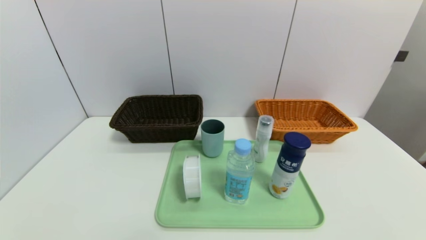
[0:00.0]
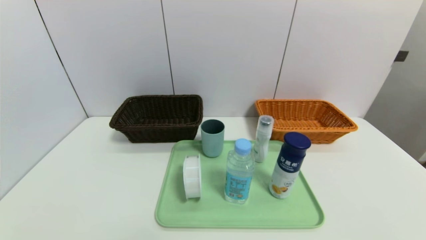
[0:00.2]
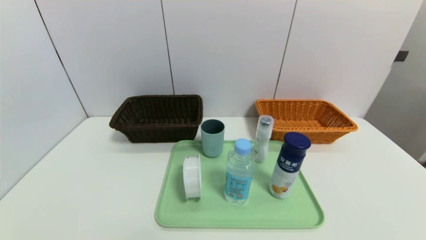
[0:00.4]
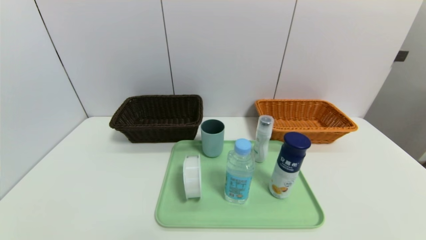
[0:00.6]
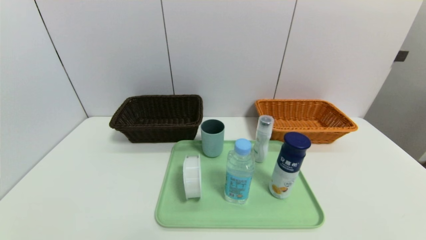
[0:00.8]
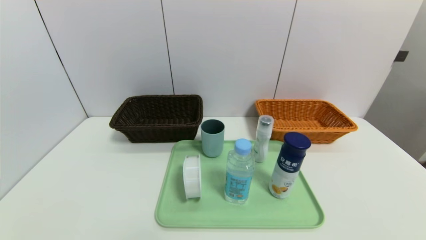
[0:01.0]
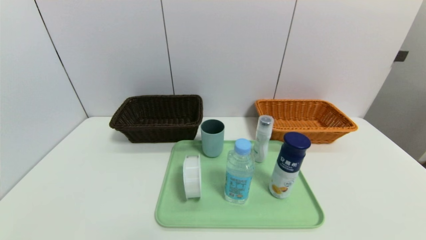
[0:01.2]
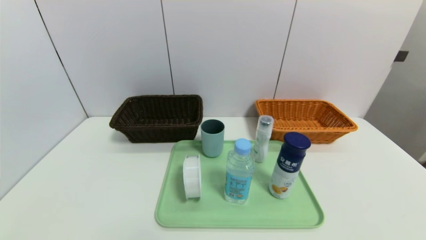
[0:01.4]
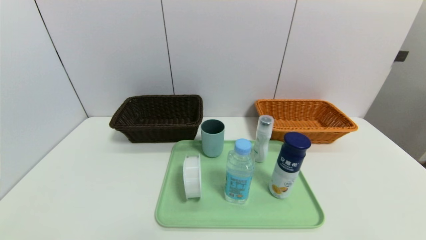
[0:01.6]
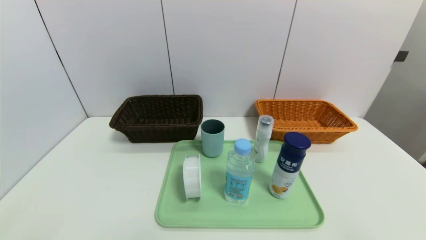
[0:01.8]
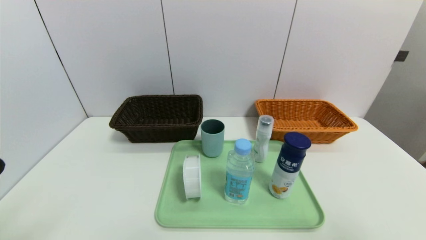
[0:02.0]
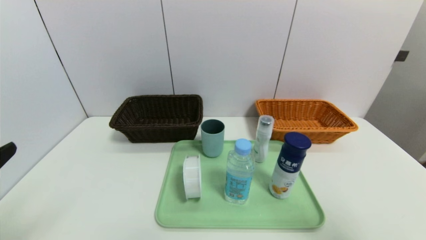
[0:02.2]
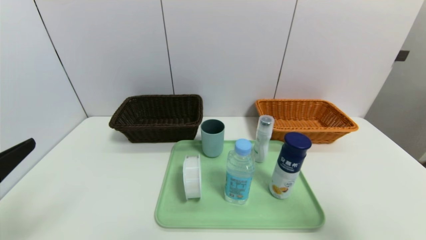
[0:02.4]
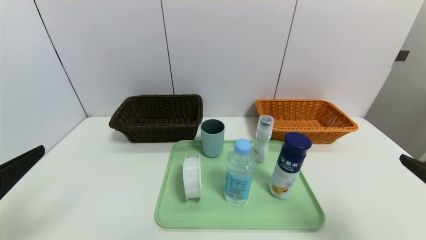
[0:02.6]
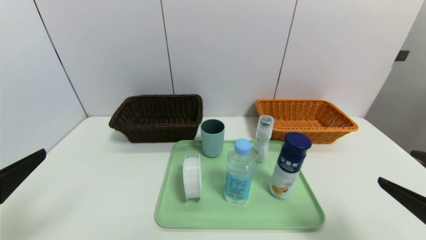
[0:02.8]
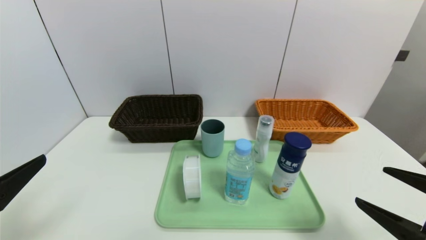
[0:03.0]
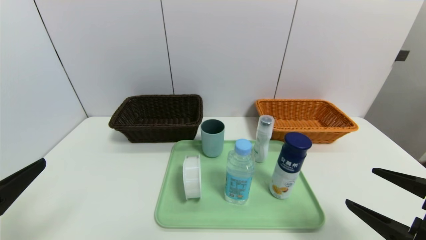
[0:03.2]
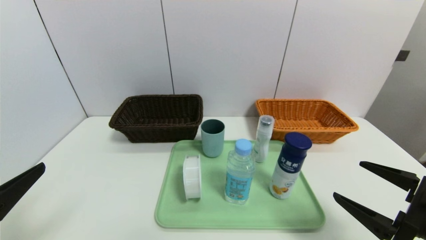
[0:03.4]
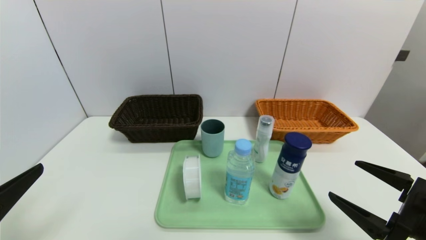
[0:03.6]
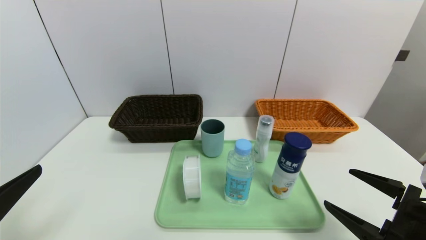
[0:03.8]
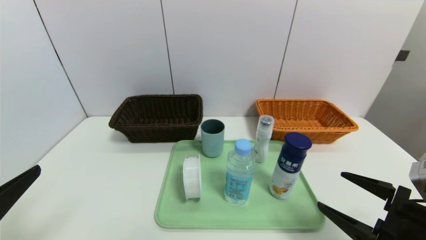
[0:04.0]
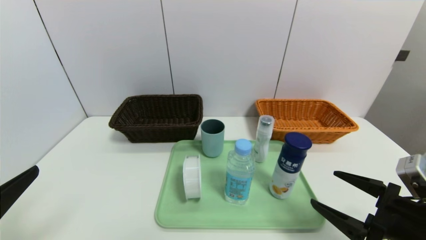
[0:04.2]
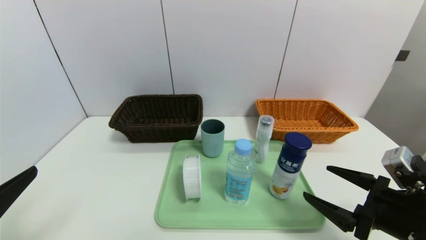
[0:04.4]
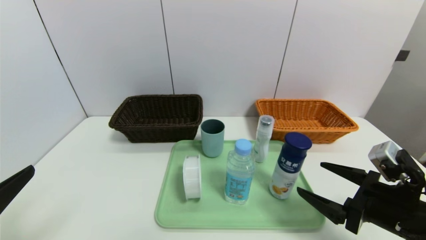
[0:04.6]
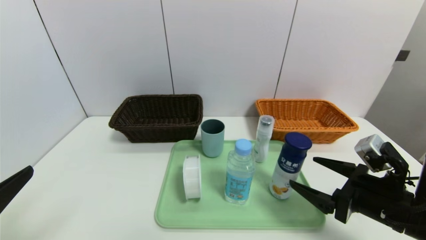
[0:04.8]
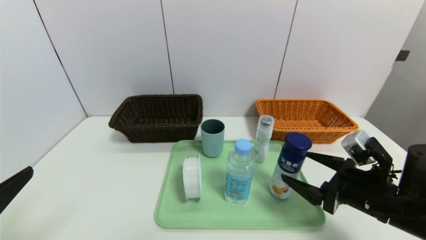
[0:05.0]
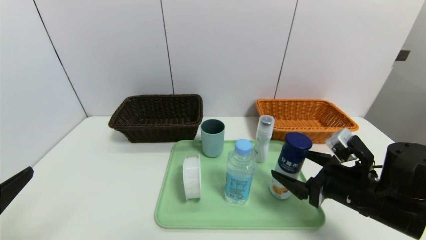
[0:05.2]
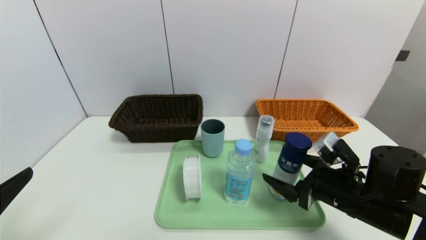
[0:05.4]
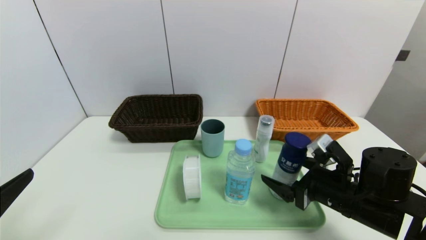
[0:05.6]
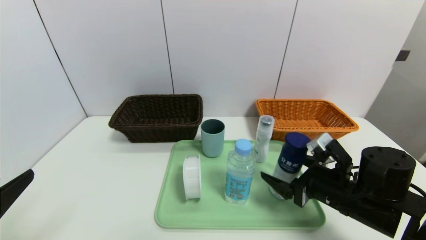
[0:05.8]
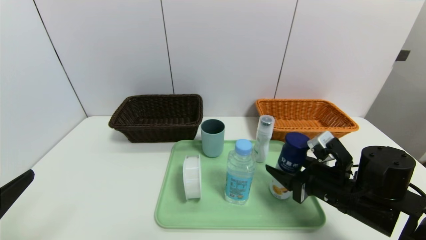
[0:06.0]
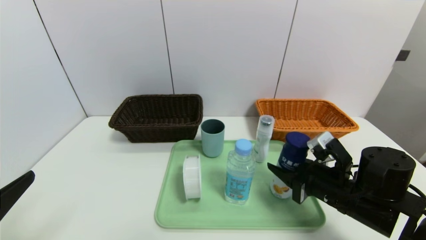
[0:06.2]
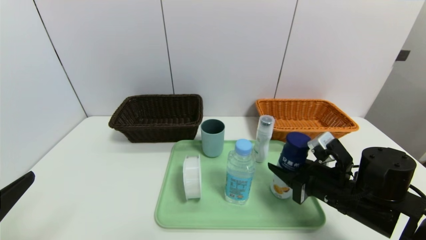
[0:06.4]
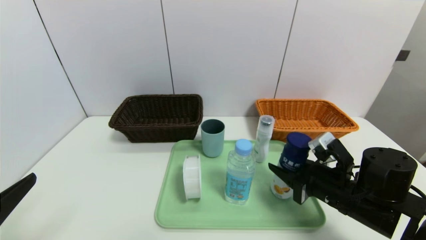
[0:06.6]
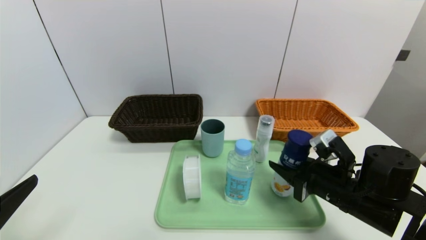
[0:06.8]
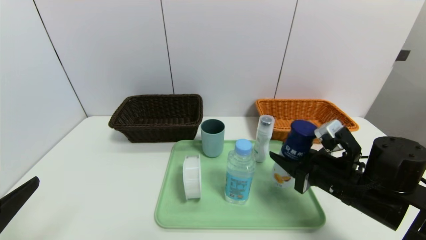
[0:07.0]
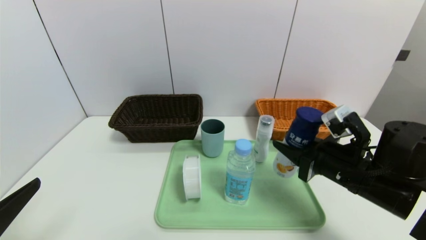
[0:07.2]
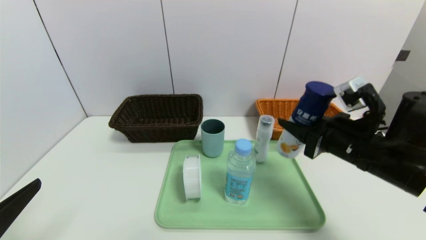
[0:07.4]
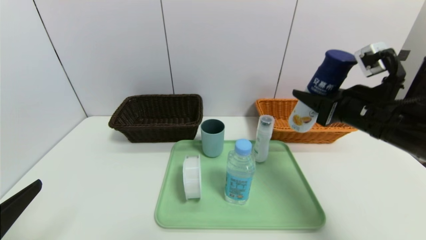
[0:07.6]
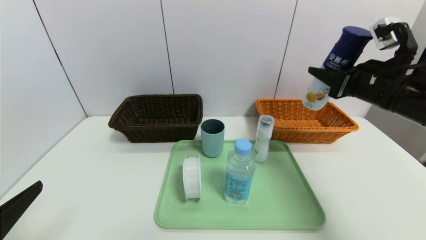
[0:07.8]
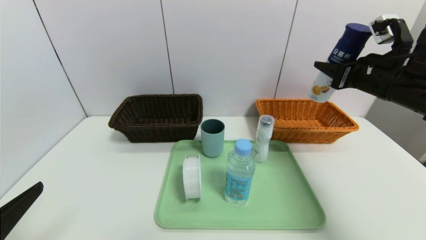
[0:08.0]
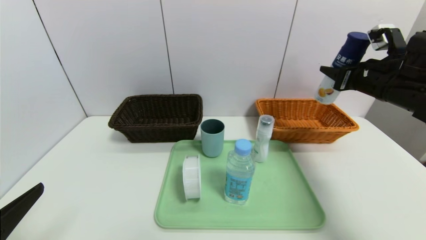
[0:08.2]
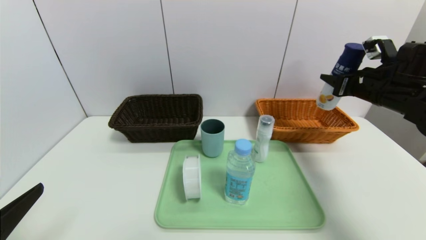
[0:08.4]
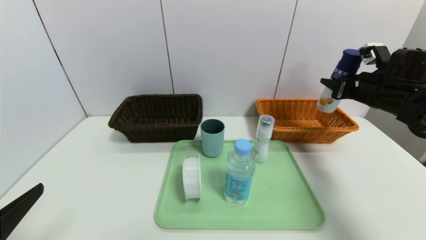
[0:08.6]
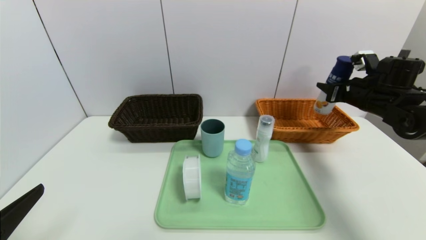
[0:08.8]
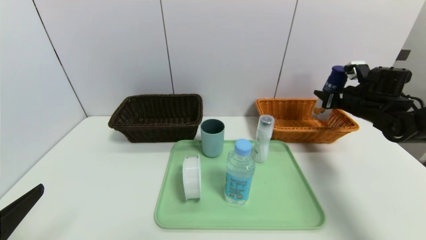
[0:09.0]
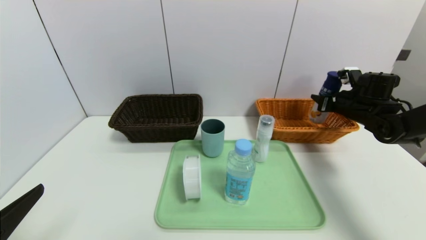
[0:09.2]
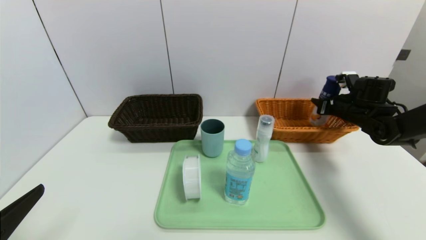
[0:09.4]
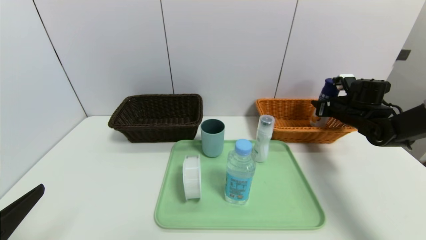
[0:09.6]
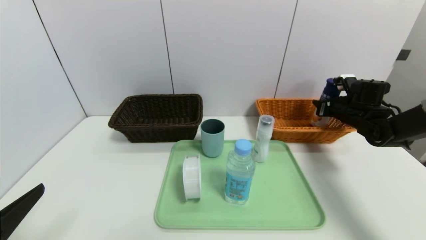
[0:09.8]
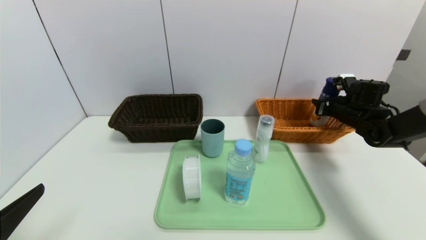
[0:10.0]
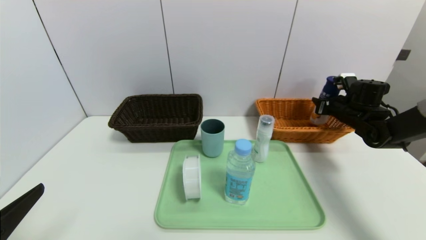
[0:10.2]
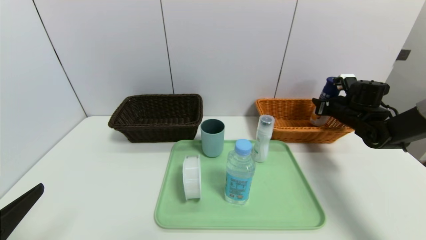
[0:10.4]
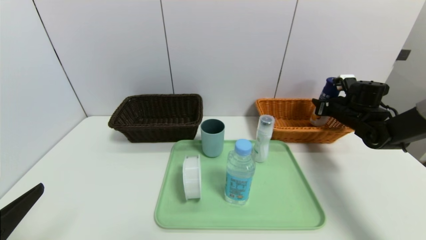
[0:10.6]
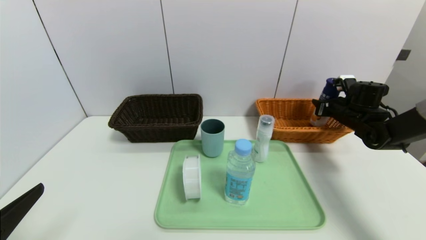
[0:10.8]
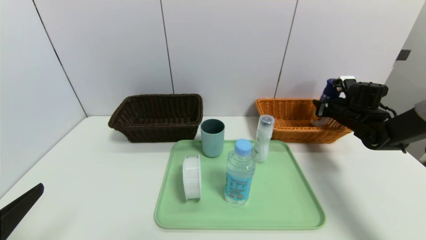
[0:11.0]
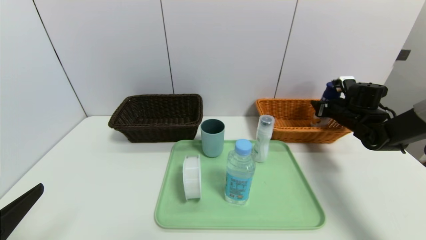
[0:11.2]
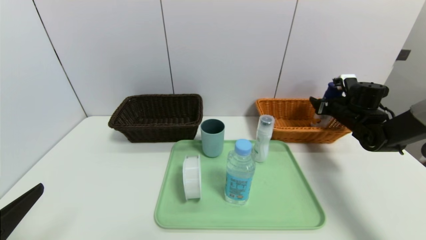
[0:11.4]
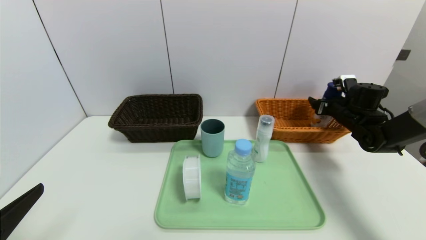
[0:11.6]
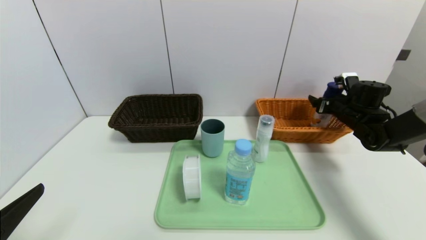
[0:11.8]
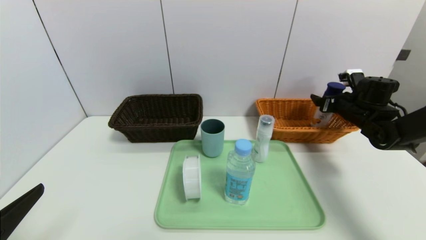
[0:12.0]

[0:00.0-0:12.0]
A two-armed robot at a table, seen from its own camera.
Task of the whole recording: place the food in the right basket with the right gripper, and place the non food items in the left basket with the left gripper.
0:01.6 to 0:03.0: Both grippers move forward, roughly 10 cm.
0:03.0 to 0:04.4: The right gripper shifts about 5 cm forward.
0:04.4 to 0:06.0: The right gripper shifts some 10 cm forward and to the left, and closes up.
0:06.0 to 0:07.6: The right gripper heads upward, covering about 15 cm.
0:07.6 to 0:09.0: The right gripper goes about 20 cm forward, to the right and downward.
0:09.0 to 0:10.4: The grippers make only small movements.
0:10.4 to 0:12.0: The right gripper opens up.

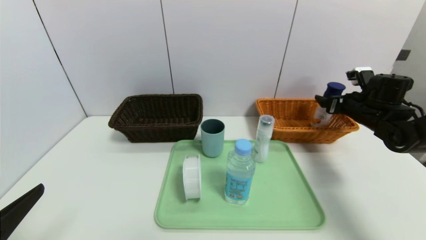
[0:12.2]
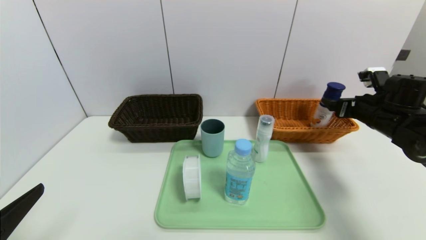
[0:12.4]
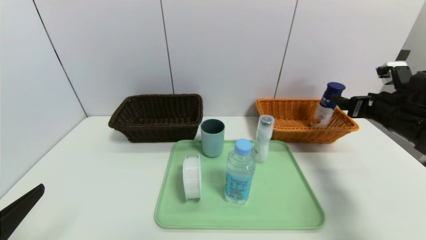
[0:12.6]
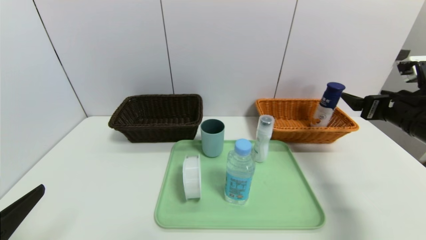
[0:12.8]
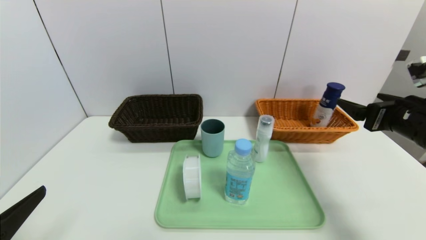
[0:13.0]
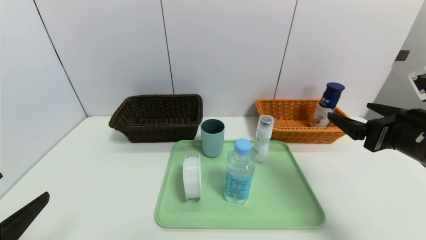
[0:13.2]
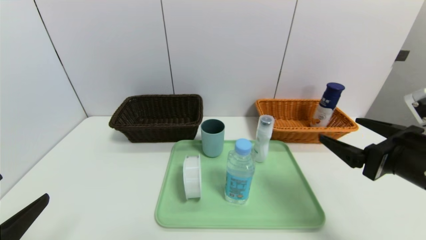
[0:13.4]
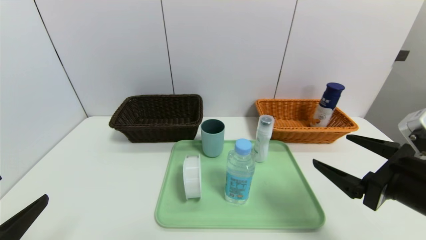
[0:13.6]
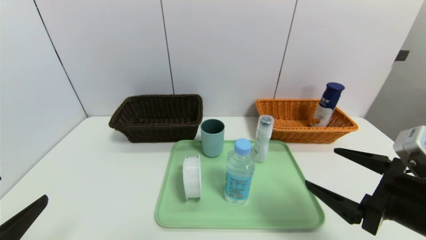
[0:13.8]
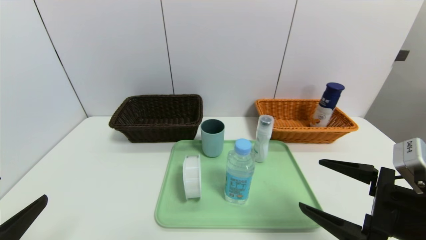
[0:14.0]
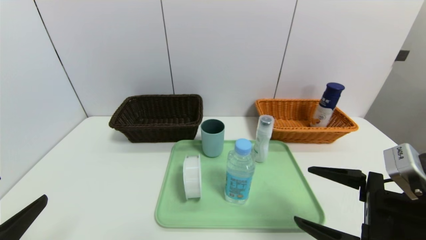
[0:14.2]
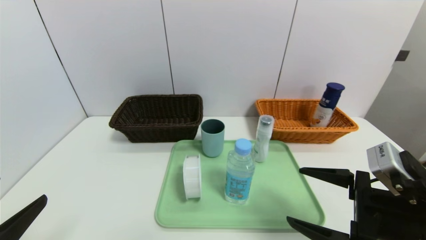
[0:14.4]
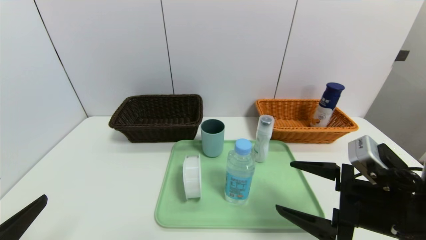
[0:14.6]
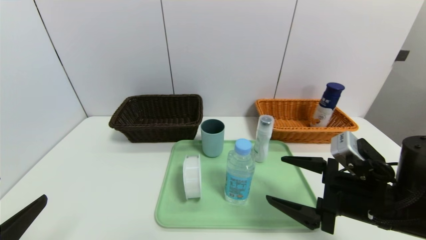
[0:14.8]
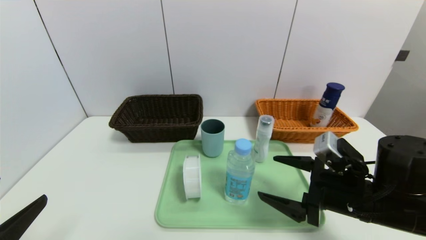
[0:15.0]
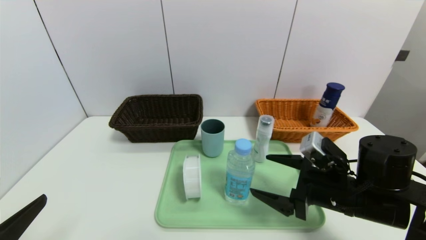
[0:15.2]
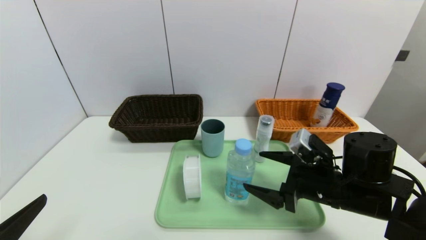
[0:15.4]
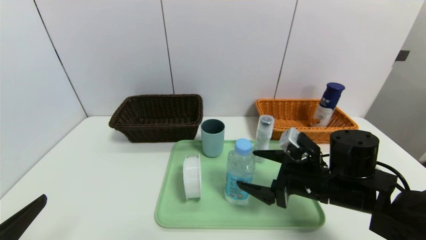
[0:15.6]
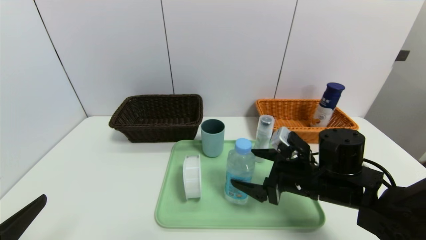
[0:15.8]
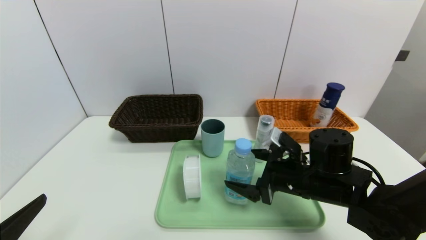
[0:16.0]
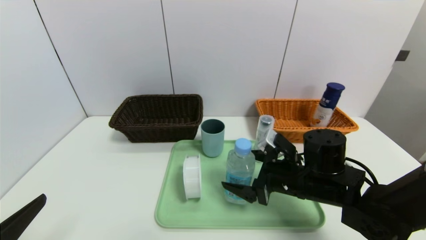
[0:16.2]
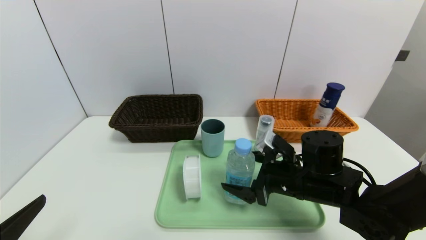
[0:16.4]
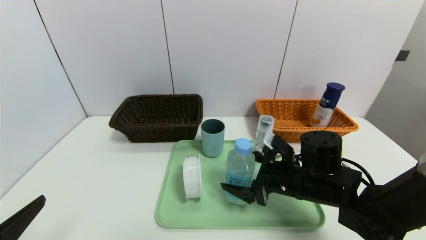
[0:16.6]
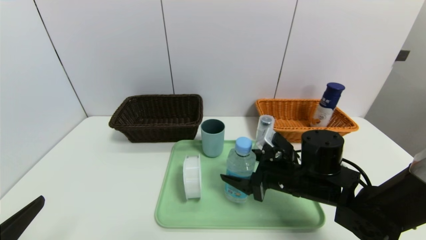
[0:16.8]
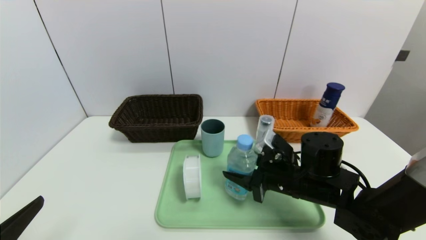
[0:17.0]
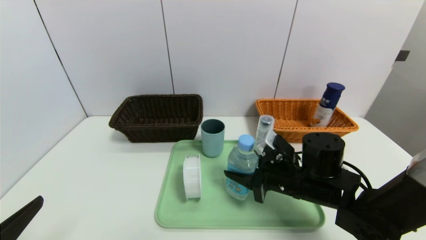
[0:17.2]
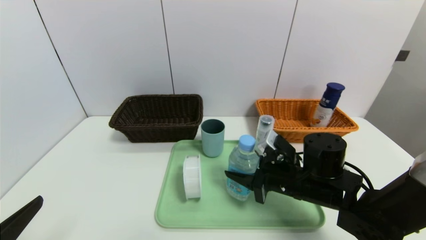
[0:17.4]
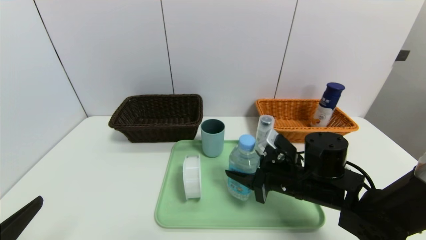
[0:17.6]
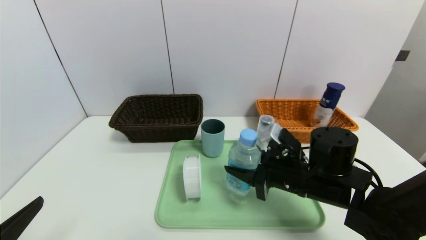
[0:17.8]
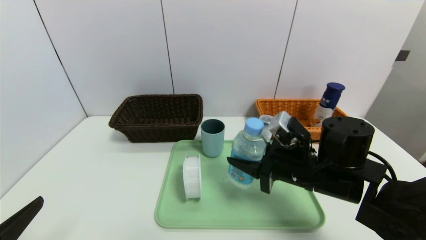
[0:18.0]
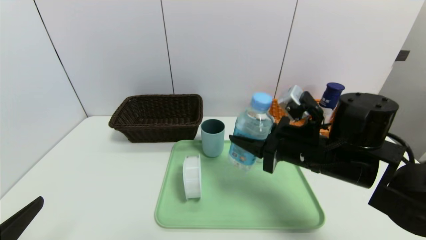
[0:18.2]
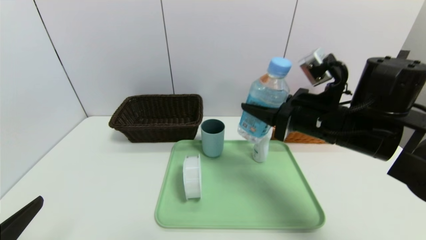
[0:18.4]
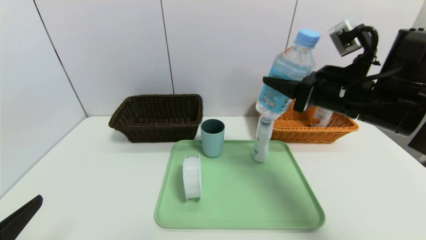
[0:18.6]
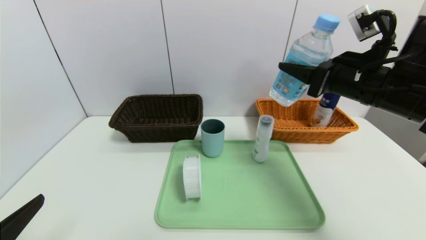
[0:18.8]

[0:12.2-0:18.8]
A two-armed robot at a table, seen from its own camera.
Task of the whole recording: place the food in the right basket with the right gripper, and place the non food items in the left basket with the left gripper.
0:12.2 to 0:13.8: The right gripper goes roughly 25 cm backward and to the left.
0:13.8 to 0:15.4: The right gripper shifts roughly 15 cm forward, to the left and downward.
0:15.4 to 0:17.2: The right gripper moves roughly 5 cm, and closes up.
0:17.2 to 0:18.8: The right gripper is displaced upward and to the right by about 20 cm.
